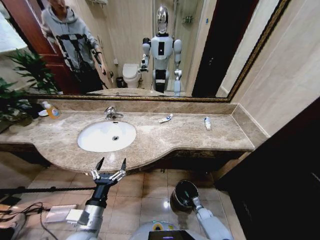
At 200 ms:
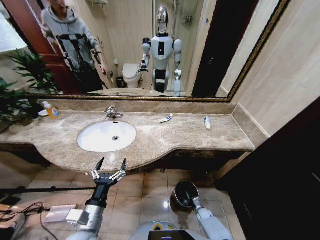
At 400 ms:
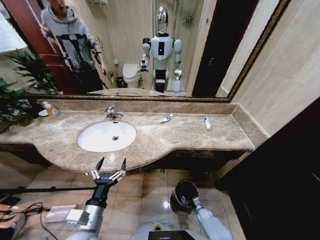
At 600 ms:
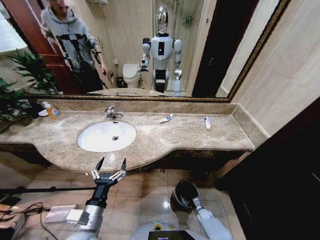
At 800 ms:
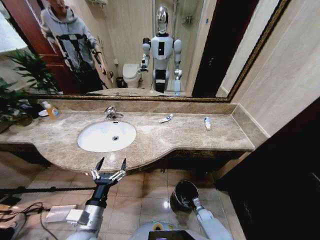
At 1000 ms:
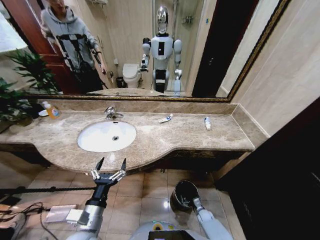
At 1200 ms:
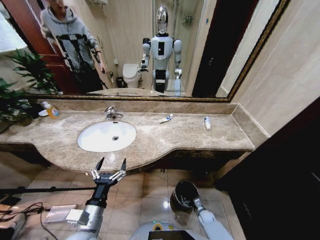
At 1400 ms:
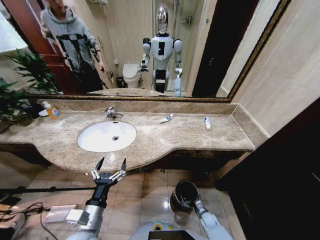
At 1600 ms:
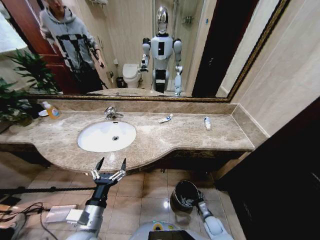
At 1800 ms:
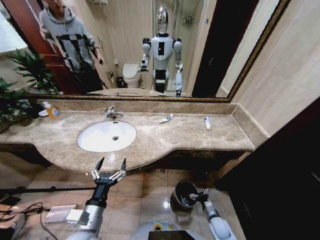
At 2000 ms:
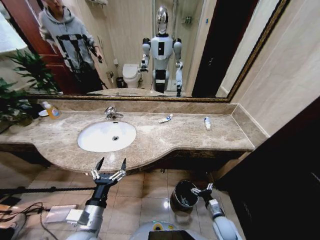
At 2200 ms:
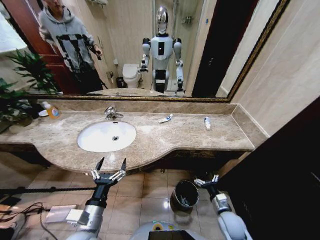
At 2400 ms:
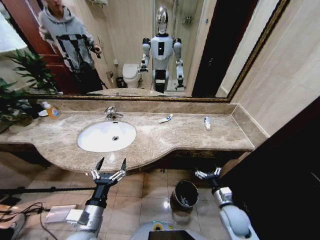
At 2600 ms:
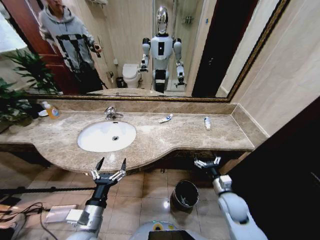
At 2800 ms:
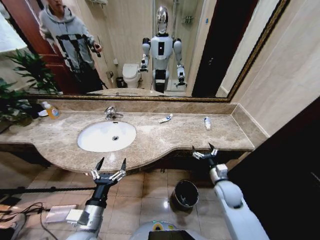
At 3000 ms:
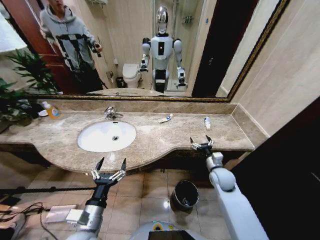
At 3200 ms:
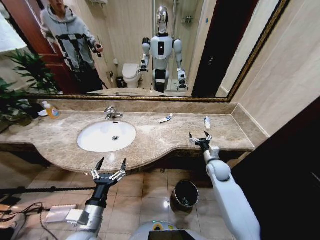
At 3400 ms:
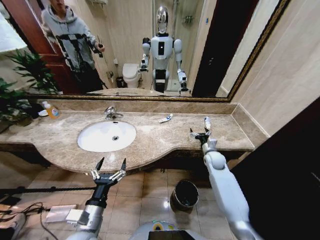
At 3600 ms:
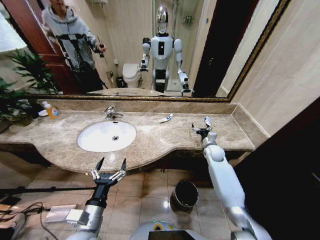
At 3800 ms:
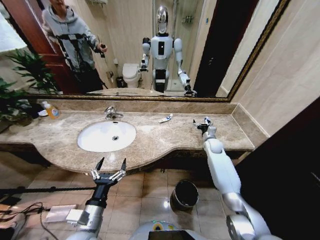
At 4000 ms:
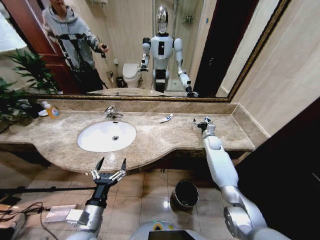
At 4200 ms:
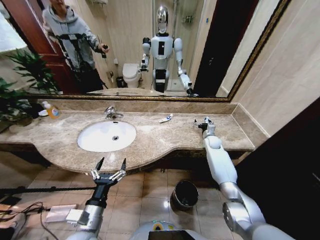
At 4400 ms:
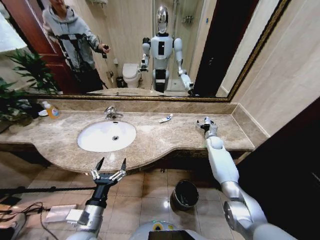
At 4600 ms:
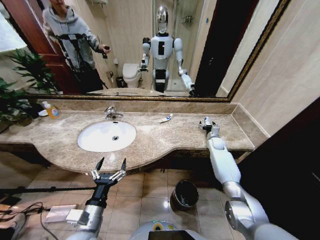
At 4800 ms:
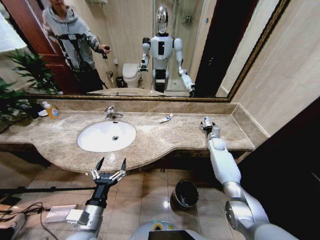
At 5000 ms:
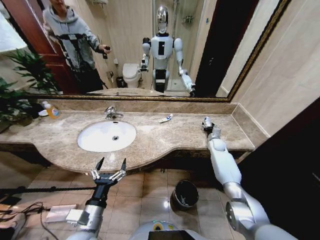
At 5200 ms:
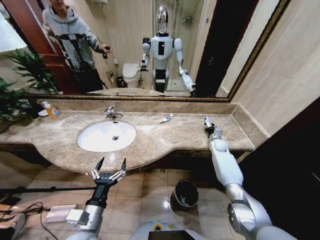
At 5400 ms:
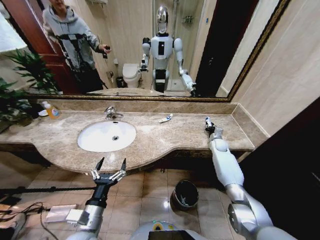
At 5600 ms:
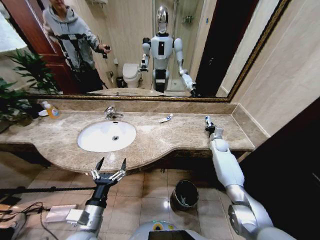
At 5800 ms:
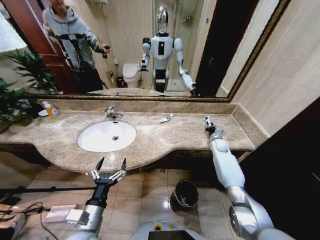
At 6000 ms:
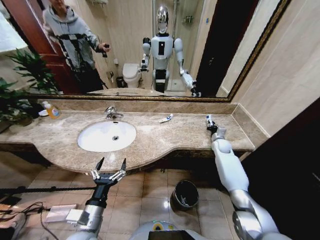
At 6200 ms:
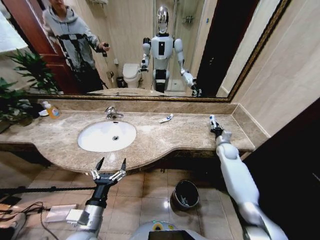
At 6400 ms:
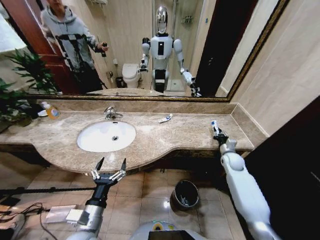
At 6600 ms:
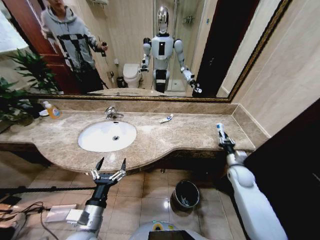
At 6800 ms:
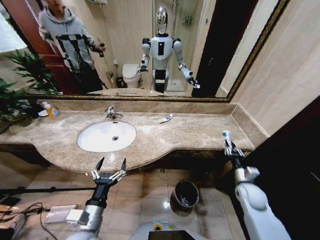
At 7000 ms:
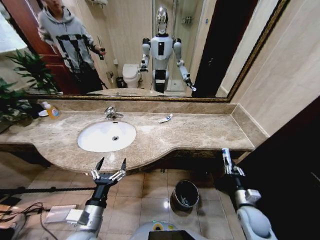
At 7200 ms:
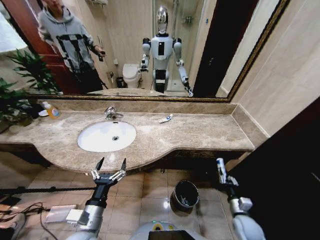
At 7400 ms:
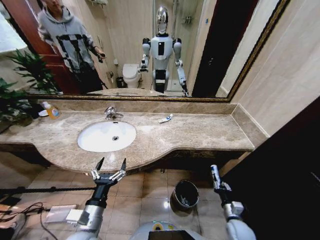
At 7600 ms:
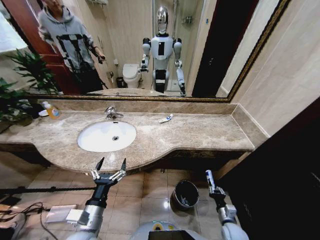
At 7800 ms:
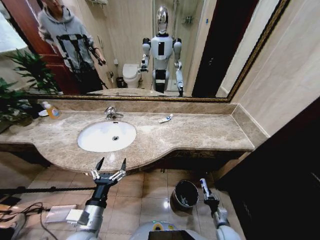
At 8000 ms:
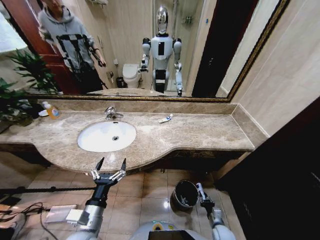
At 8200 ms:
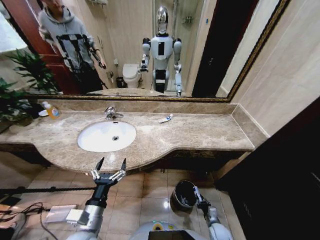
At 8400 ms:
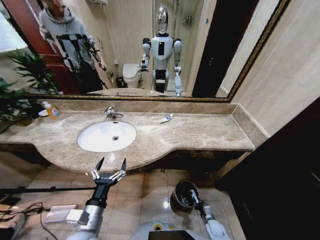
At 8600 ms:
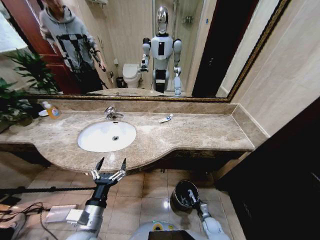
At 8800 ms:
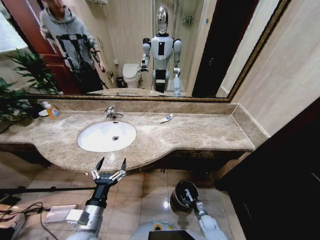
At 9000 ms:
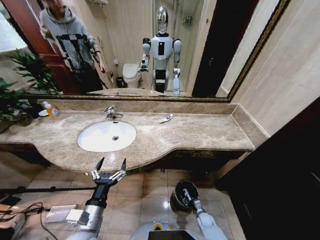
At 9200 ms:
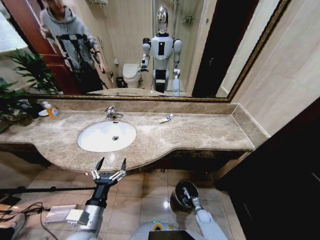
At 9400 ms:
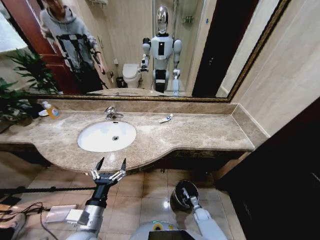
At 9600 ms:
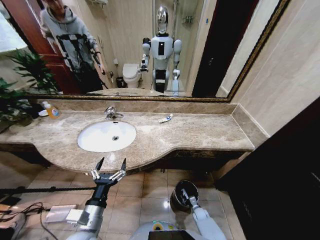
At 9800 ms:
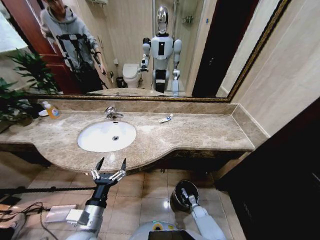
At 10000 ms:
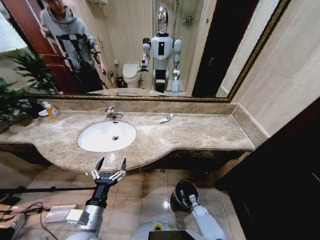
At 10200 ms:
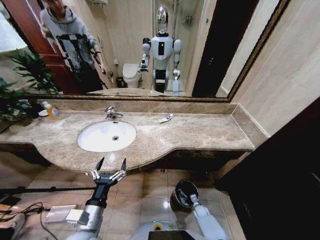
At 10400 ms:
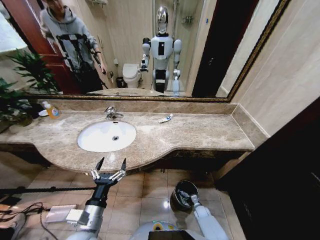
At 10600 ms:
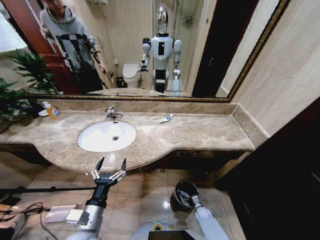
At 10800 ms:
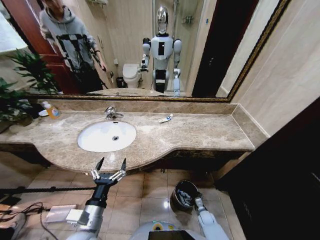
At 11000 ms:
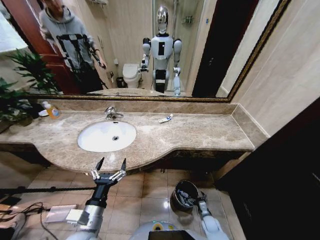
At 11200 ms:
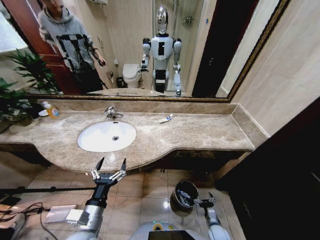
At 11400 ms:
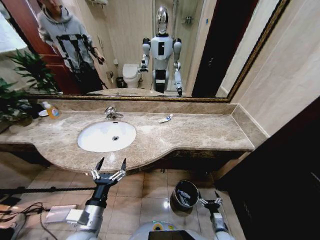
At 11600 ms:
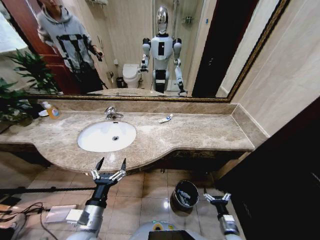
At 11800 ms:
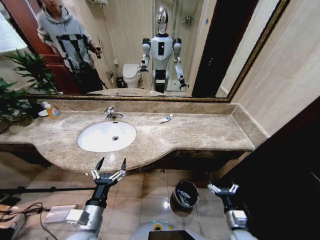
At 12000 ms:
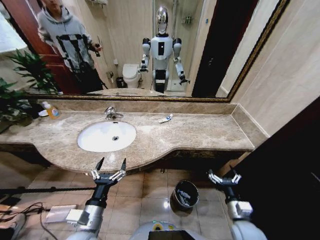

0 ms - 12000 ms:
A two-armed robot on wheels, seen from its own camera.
Task of the whole recording: Pick up the trash from the sink and place it in the trash bin.
0 ms - 1600 ms: The right gripper is displaced upward and backward by roughly 10 cm, and opens.
1600 ms - 3000 ms: The right gripper is displaced upward and forward by some 30 cm.
3000 ms - 4400 ms: The right gripper goes approximately 20 cm forward.
4400 ms - 6000 ms: The right gripper closes.
6000 ms - 7600 ms: The right gripper heads backward and downward, covering roughly 40 cm.
7600 ms - 9000 ms: The right gripper is displaced downward and forward by some 15 cm.
9000 ms - 10400 ms: The right gripper opens up.
10400 ms - 12000 ms: The right gripper goes roughly 30 cm upward.

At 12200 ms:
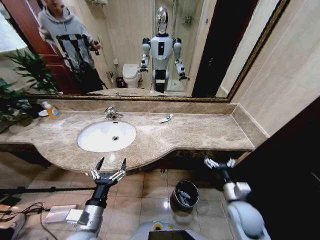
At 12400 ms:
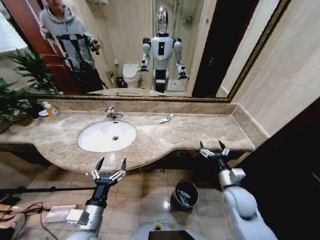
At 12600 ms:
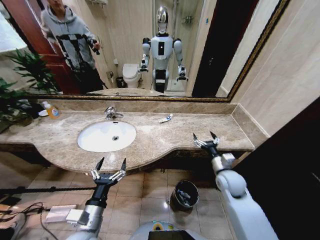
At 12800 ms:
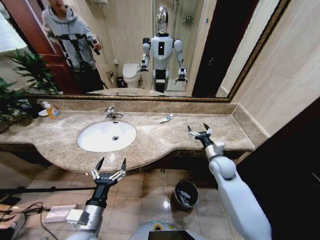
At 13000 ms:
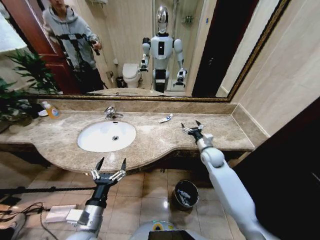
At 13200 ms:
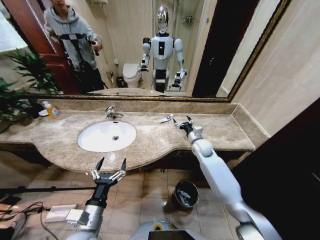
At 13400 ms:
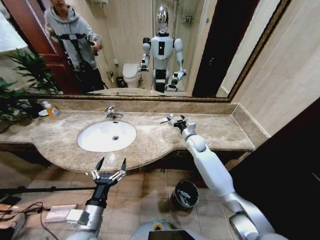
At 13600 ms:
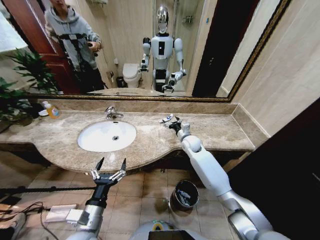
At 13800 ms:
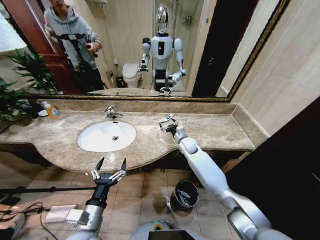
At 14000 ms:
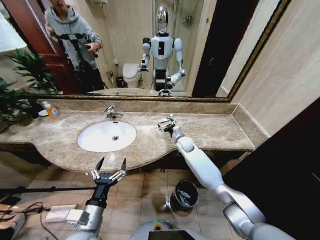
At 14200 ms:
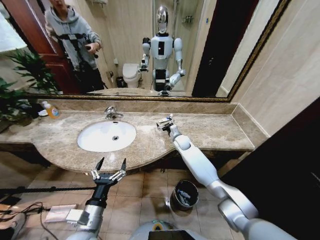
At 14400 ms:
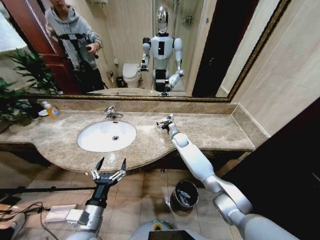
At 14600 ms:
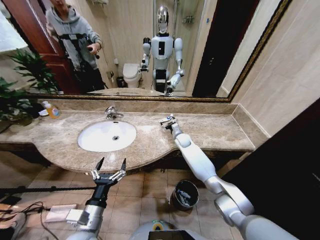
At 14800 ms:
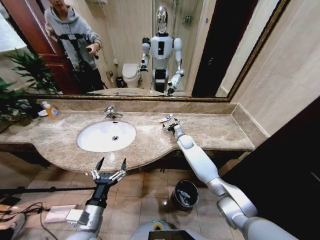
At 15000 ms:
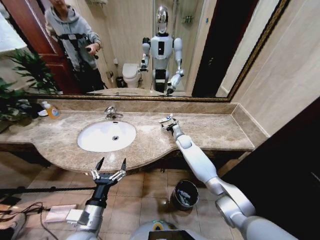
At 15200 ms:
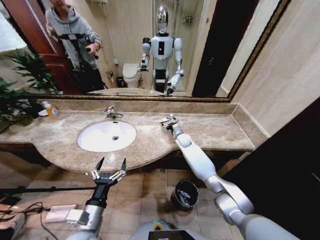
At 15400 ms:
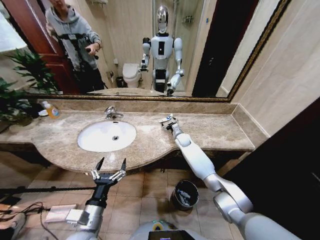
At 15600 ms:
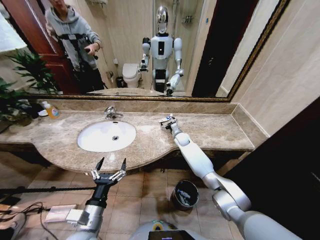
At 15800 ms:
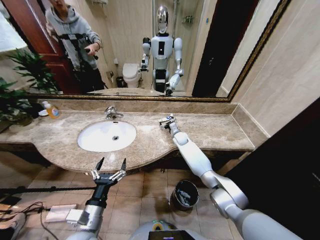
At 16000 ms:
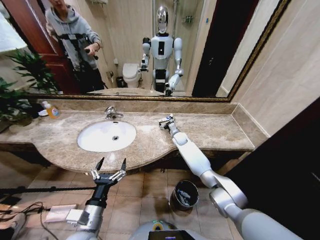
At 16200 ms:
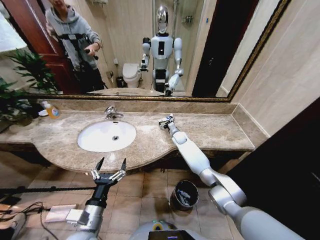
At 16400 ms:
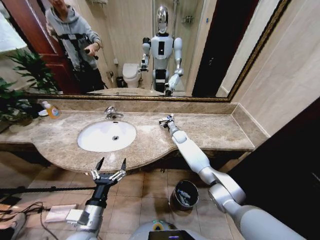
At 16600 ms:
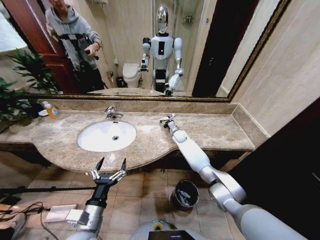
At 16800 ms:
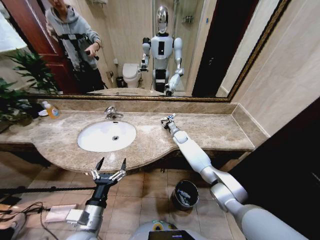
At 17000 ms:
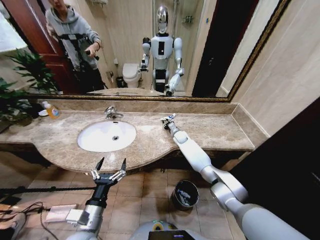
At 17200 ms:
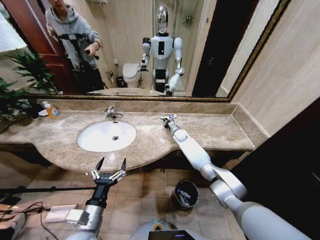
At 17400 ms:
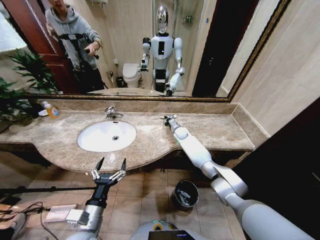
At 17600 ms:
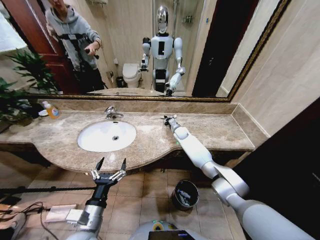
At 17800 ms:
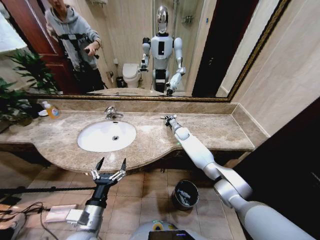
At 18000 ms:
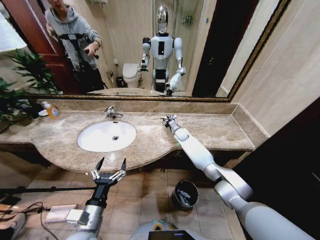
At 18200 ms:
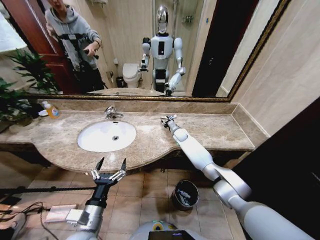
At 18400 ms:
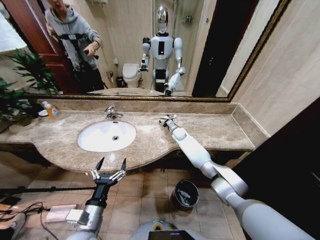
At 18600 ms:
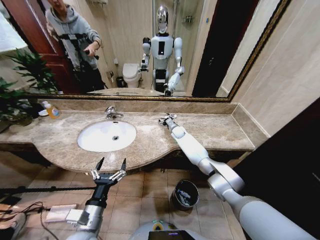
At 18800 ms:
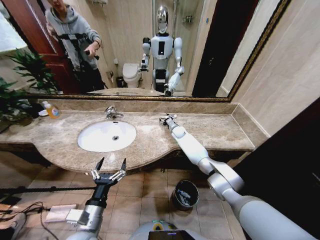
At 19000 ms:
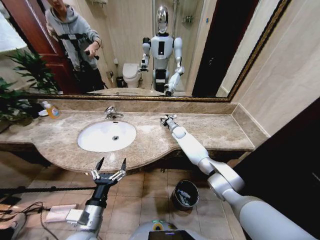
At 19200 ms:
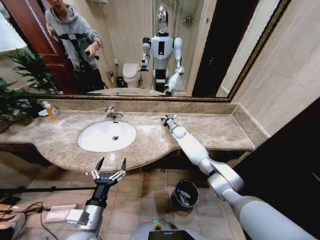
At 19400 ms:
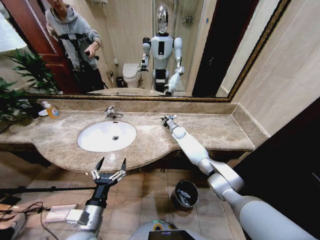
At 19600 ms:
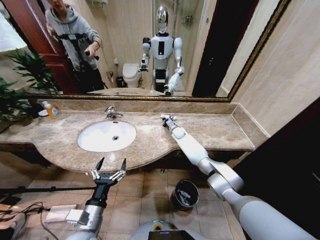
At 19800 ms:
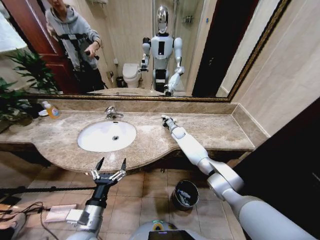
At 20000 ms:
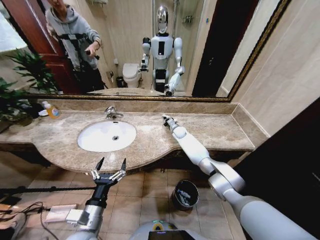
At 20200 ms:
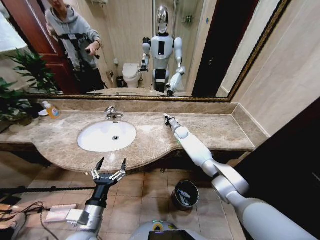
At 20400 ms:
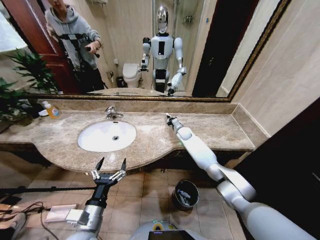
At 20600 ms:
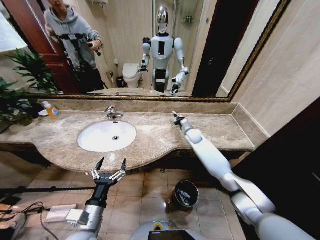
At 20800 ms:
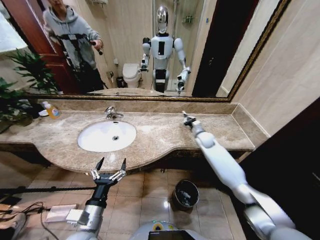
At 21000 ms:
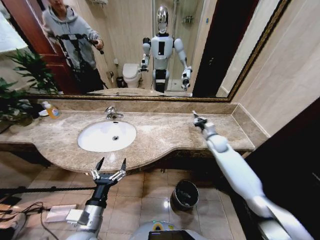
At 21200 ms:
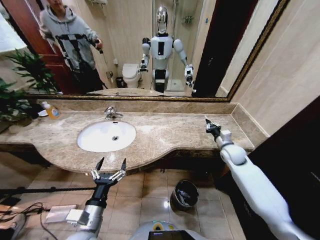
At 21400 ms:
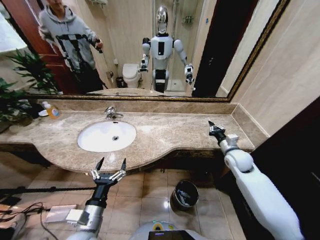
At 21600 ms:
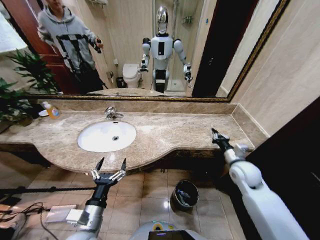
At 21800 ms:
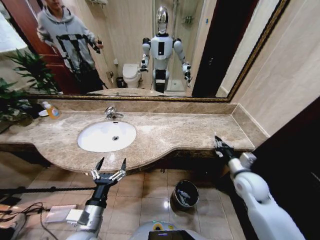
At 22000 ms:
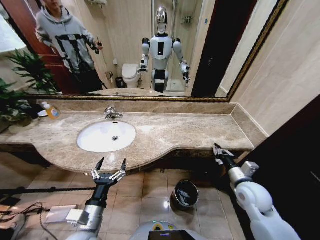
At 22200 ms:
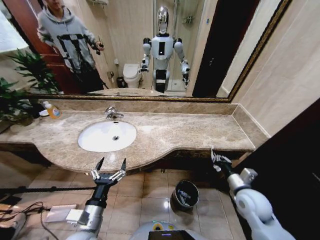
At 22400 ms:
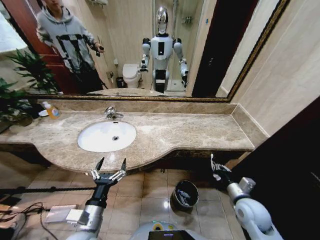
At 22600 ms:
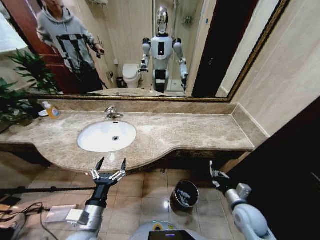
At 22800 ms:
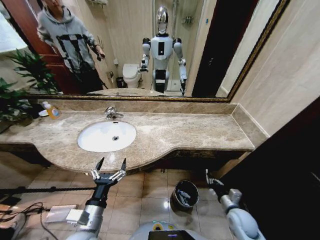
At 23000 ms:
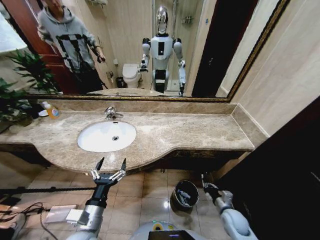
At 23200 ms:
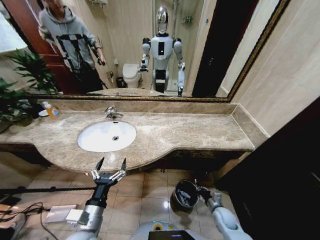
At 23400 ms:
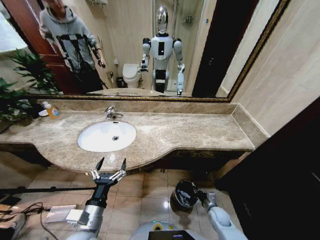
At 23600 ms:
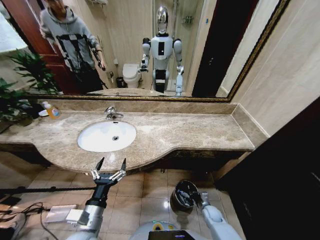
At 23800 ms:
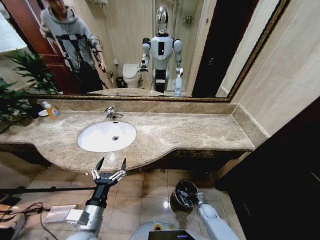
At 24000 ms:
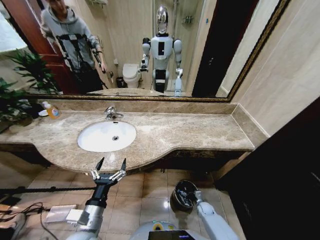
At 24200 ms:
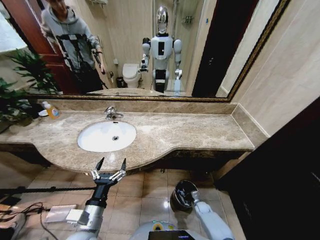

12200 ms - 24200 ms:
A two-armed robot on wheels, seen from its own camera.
Task of the whole recording: Pick up the trash from the sink and place it in the trash bin.
12200 ms - 13800 ms: The right gripper shifts some 30 cm forward.
13800 ms - 15200 ms: The right gripper moves forward, some 5 cm.
15200 ms - 16600 ms: The grippers stay close to where they were, moving slightly.
16600 ms - 18200 ms: The right gripper closes, then opens again.
18200 ms - 19800 ms: The right gripper closes.
19800 ms - 21200 ms: The right gripper travels to the right and backward by approximately 30 cm.
21200 ms - 22600 ms: The right gripper is displaced backward and downward by about 25 cm.
22600 ms - 24200 ms: The right gripper goes approximately 30 cm downward.
